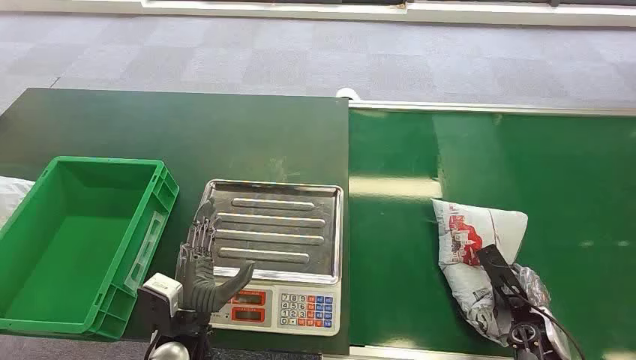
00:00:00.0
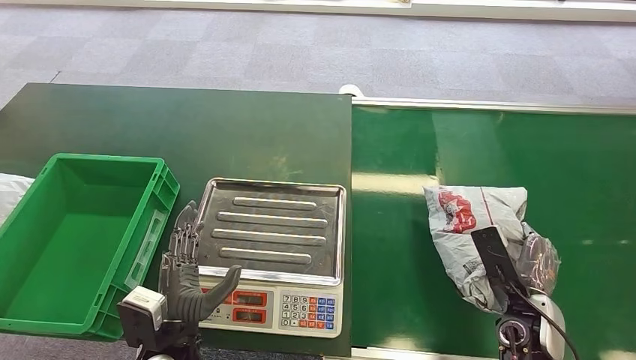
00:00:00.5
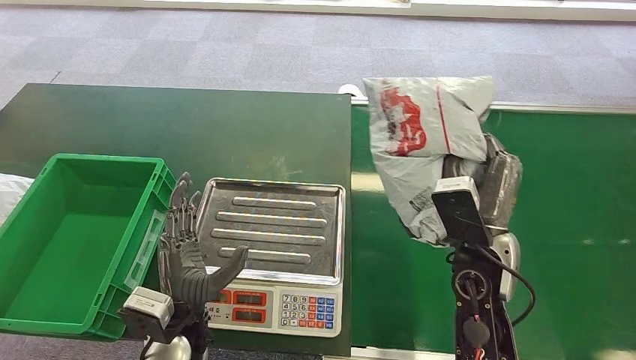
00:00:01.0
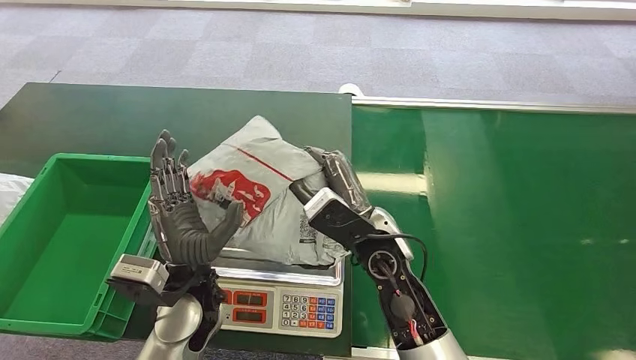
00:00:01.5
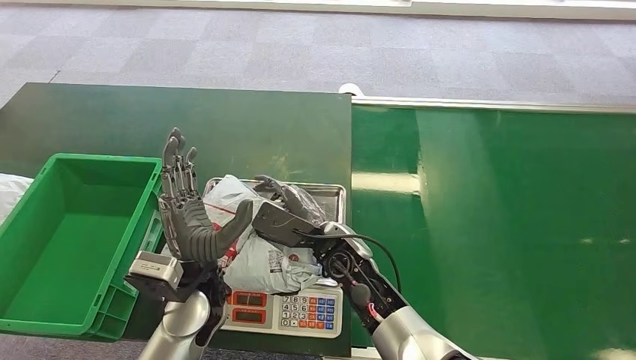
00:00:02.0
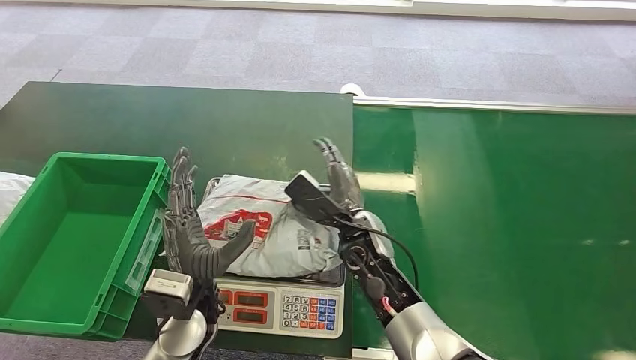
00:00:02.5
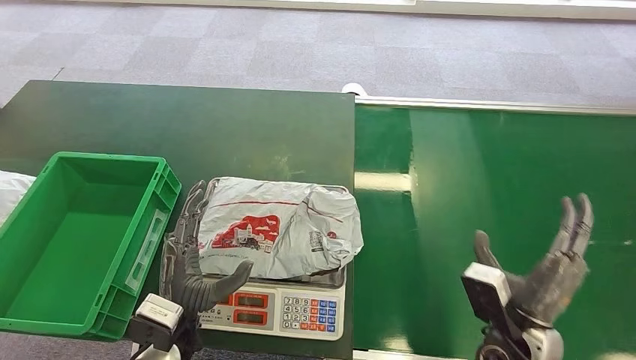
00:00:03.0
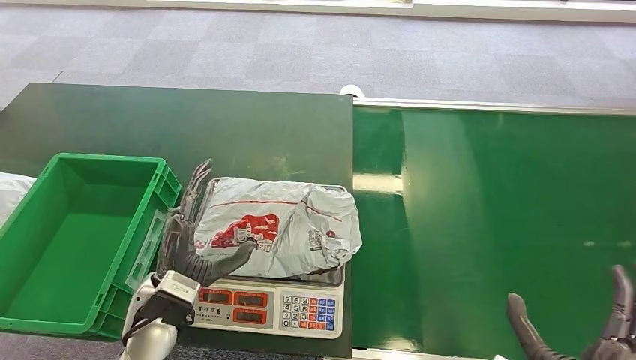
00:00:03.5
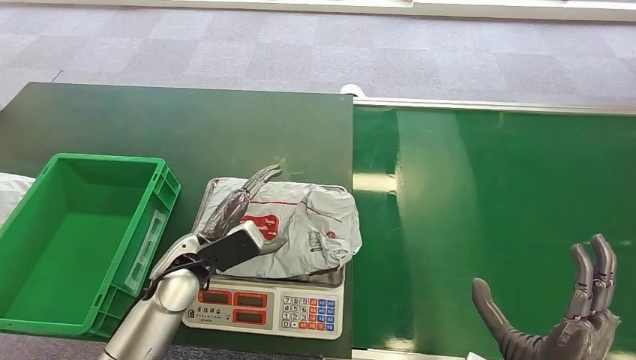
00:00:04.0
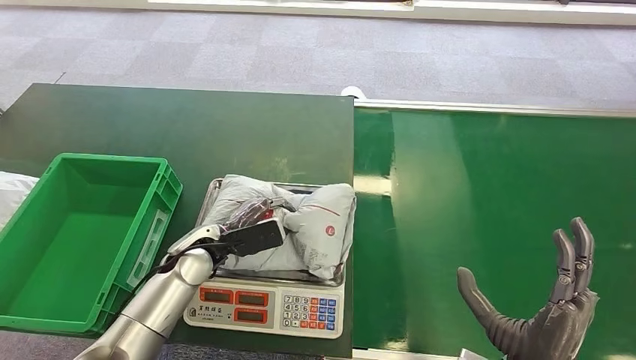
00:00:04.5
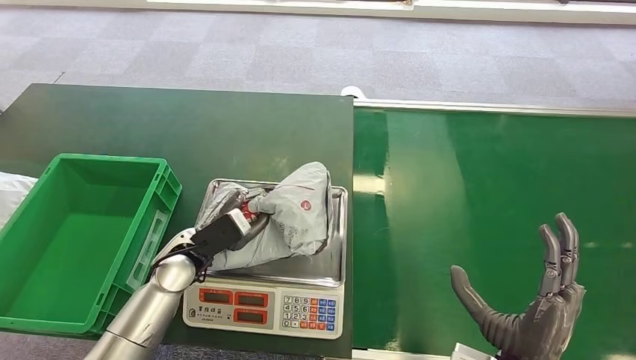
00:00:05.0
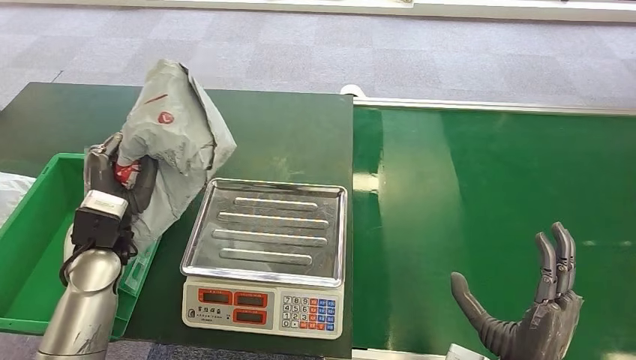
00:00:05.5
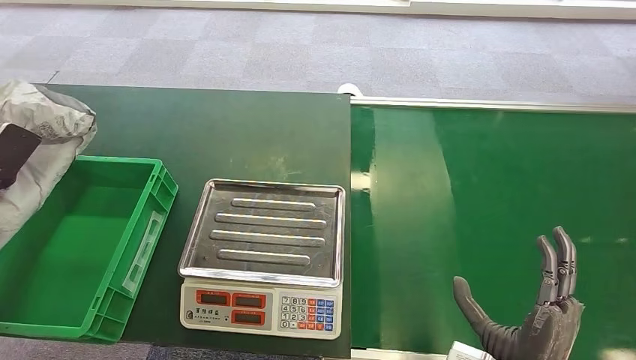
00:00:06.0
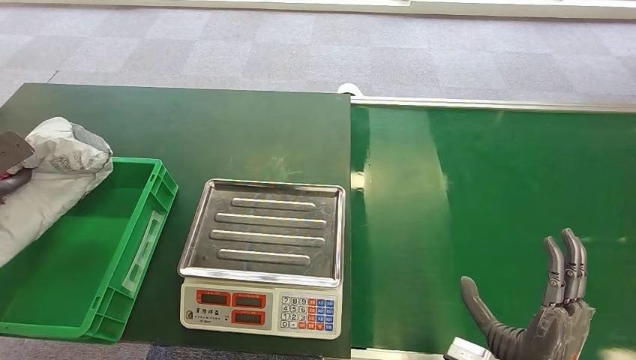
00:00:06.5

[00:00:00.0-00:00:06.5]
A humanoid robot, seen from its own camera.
Step, 00:00:00.0 to 00:00:00.5: Pick up the package from the conveyor belt.
Step, 00:00:01.5 to 00:00:02.5: Place the package onto the inbound machine.
Step, 00:00:05.5 to 00:00:06.5: Place the package into the parcel locker.
